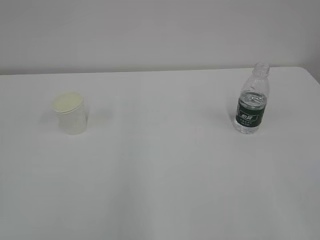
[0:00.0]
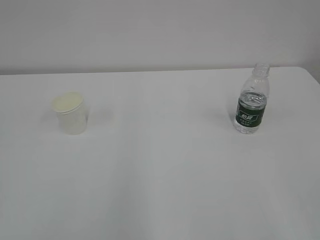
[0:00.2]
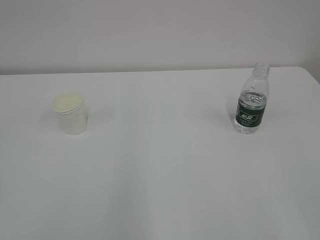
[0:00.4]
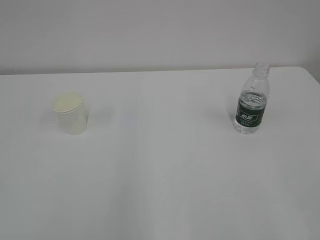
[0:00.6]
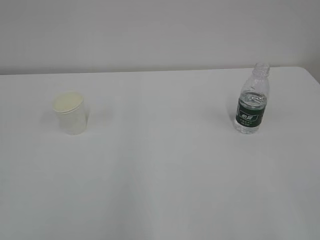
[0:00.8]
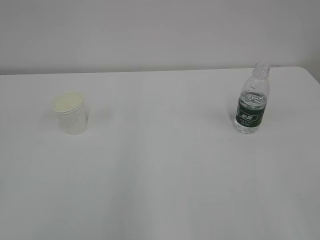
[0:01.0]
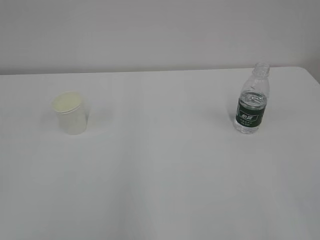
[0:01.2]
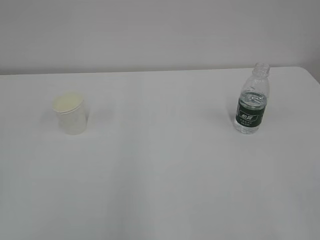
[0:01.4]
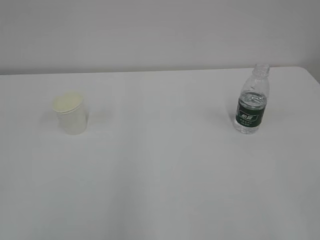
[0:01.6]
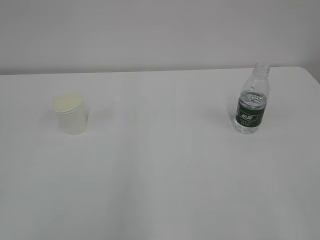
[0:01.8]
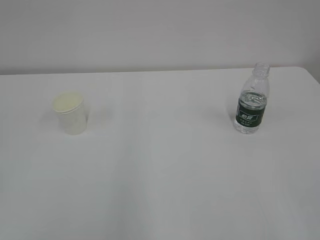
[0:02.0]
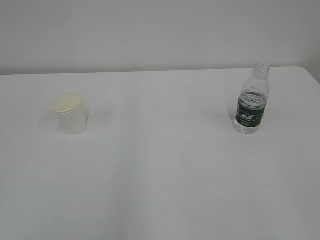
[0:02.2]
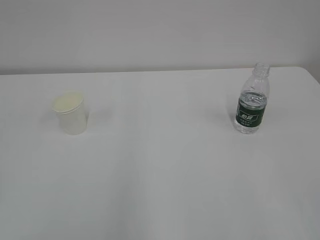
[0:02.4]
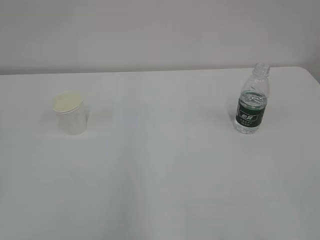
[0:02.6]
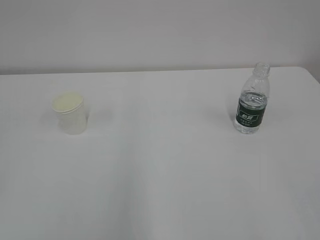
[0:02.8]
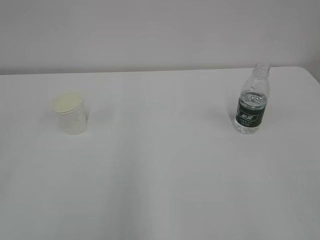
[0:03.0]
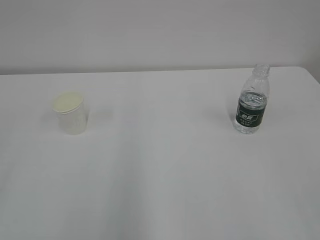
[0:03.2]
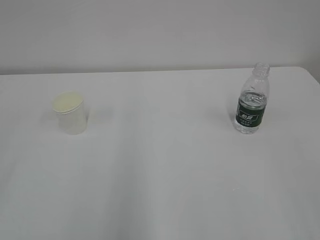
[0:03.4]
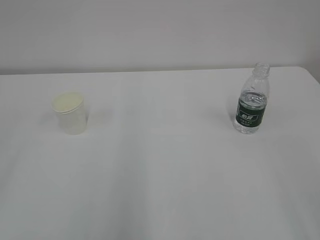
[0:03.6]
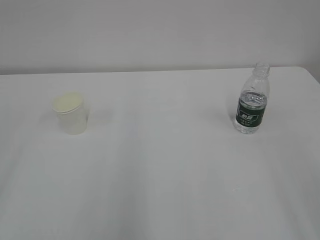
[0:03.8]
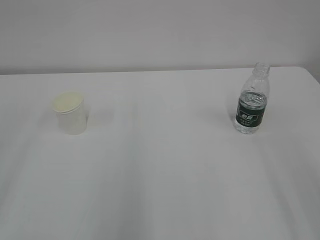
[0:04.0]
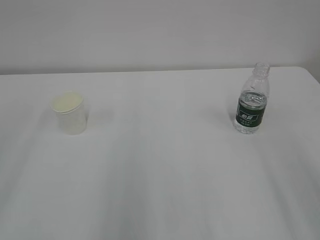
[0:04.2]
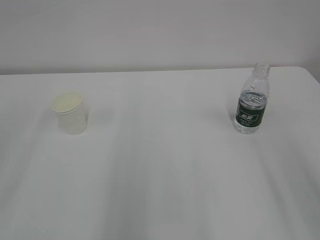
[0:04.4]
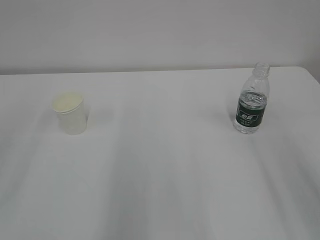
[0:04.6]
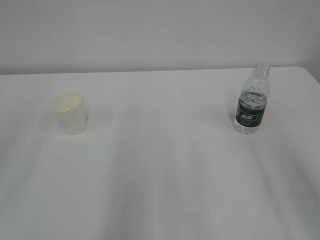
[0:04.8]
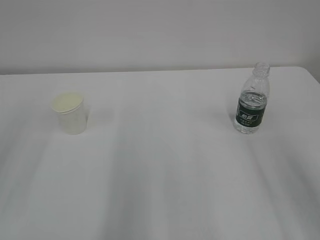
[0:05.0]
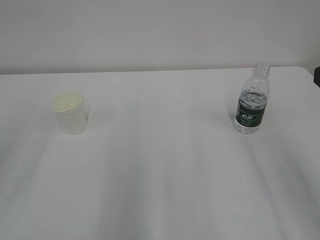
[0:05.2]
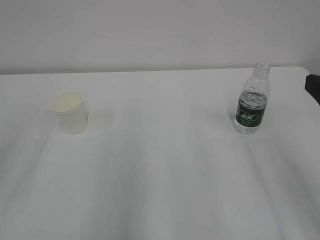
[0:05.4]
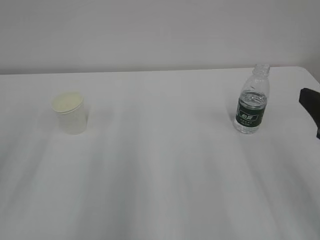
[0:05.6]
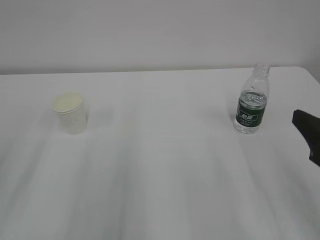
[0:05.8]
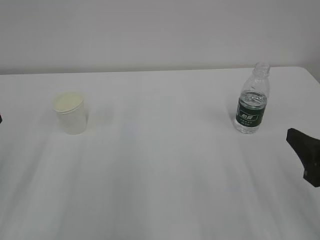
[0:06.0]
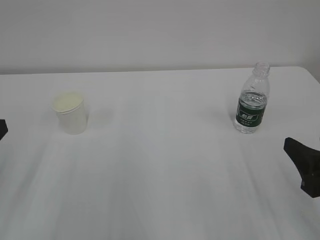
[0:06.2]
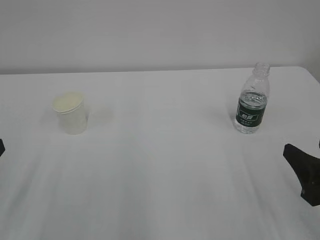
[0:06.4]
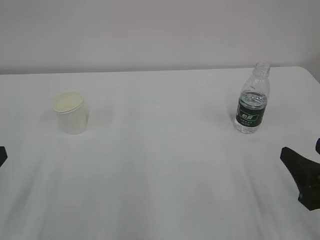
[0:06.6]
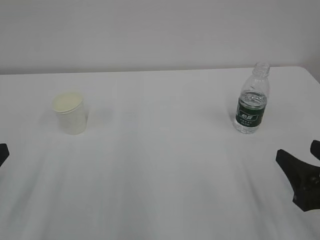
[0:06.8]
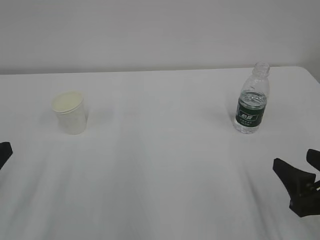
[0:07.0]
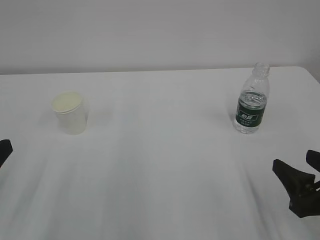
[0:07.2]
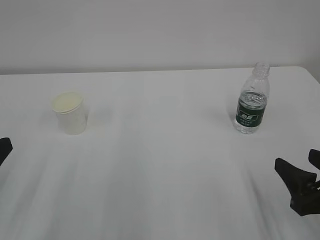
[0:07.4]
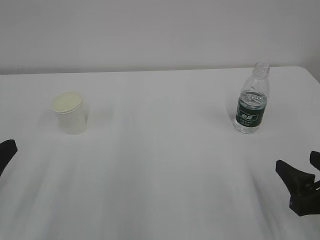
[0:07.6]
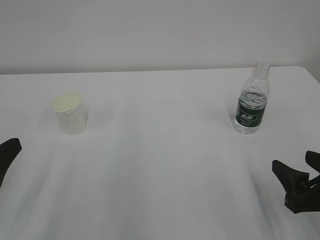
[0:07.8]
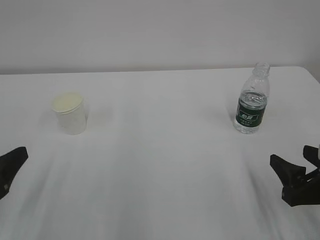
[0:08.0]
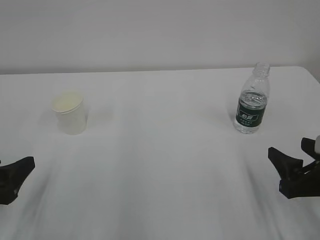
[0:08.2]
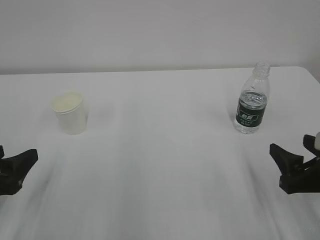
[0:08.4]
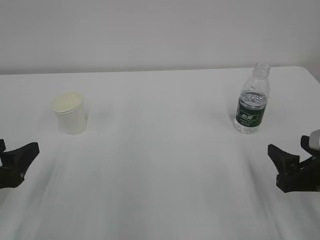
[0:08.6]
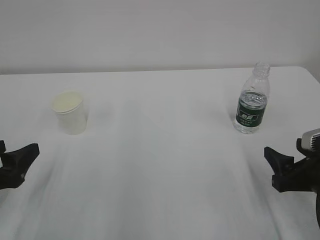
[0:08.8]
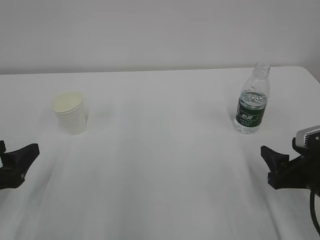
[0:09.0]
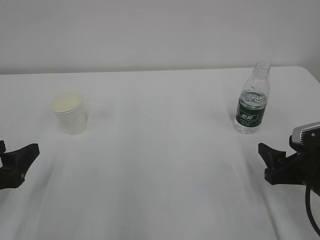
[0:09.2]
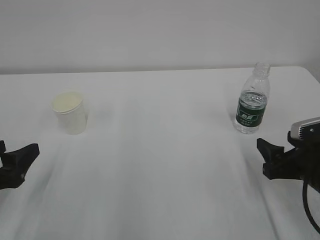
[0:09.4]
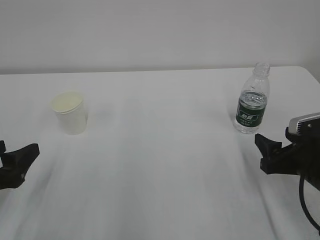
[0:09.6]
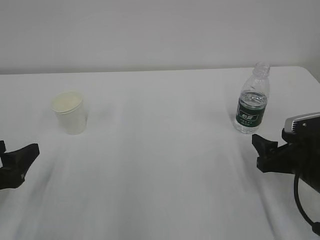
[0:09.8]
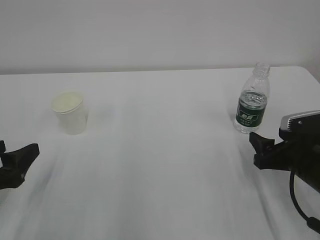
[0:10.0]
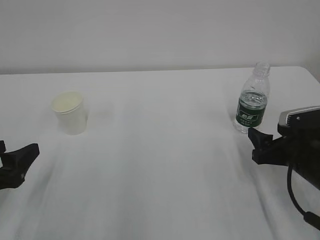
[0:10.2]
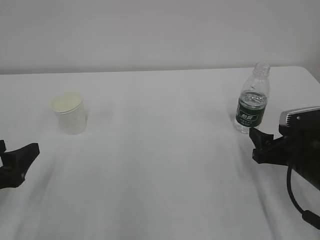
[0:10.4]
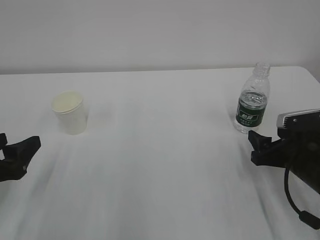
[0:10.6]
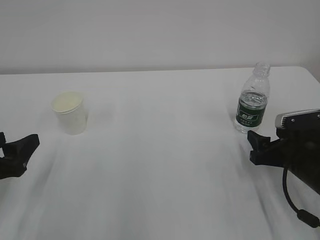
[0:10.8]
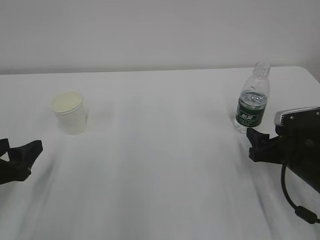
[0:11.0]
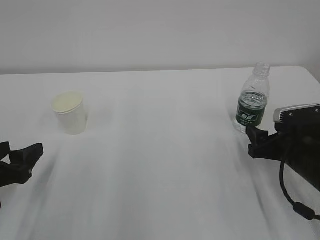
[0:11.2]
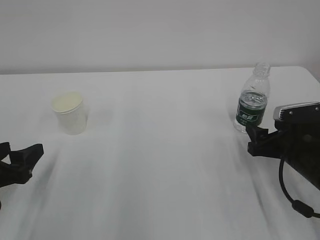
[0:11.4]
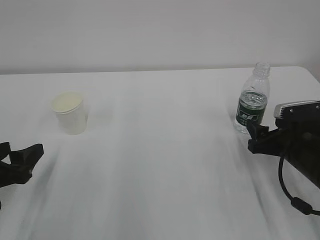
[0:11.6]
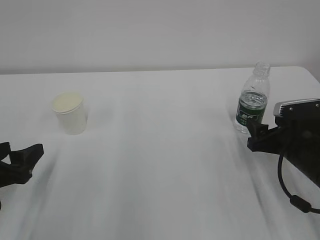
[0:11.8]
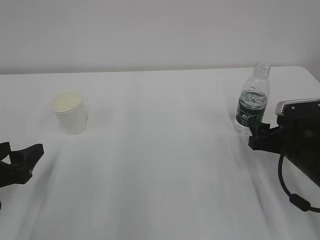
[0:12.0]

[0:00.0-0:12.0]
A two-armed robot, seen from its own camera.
0:04.4 to 0:06.0: The right gripper shifts some 15 cm downward and forward.
0:06.0 to 0:07.6: The right gripper heads downward, covering about 5 cm.
0:07.6 to 0:09.0: The right gripper shifts roughly 5 cm forward, while the left gripper ends up about 5 cm from where it was.
0:09.0 to 0:10.4: The right gripper shifts by roughly 5 cm.
0:10.4 to 0:12.0: The grippers stay close to where they were, moving slightly.

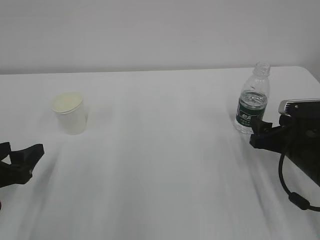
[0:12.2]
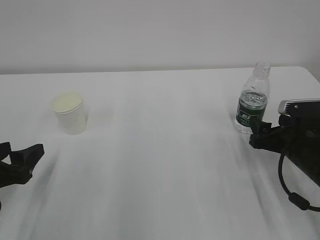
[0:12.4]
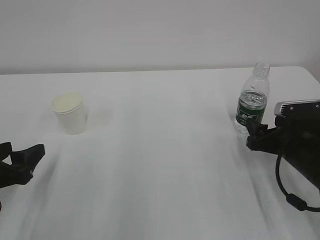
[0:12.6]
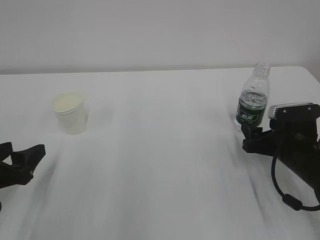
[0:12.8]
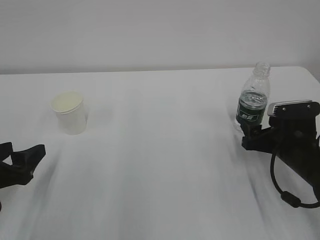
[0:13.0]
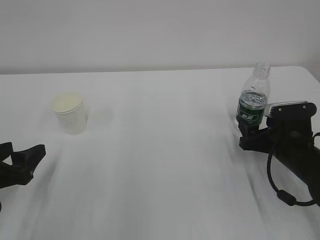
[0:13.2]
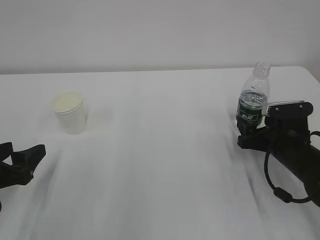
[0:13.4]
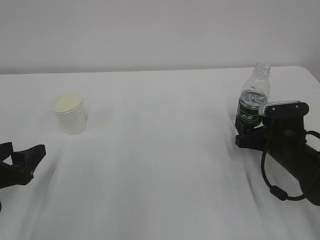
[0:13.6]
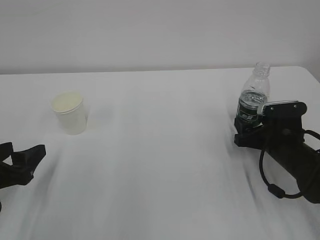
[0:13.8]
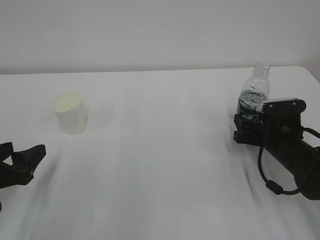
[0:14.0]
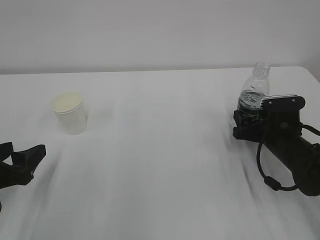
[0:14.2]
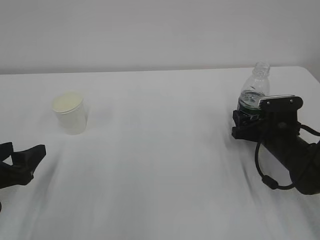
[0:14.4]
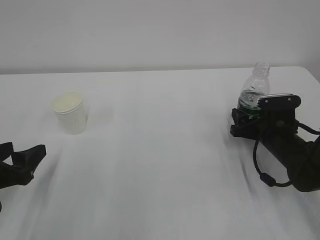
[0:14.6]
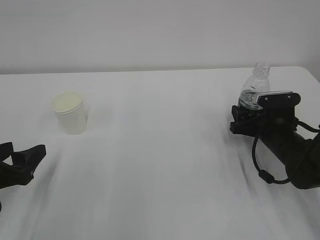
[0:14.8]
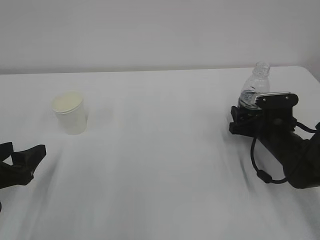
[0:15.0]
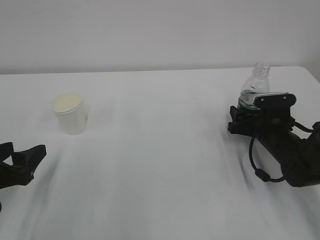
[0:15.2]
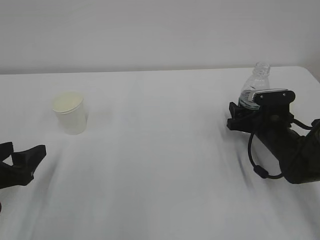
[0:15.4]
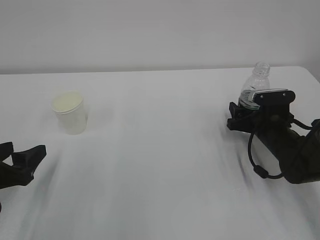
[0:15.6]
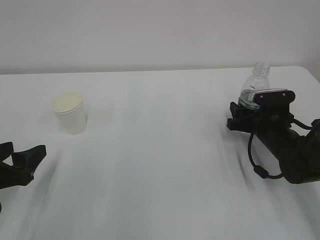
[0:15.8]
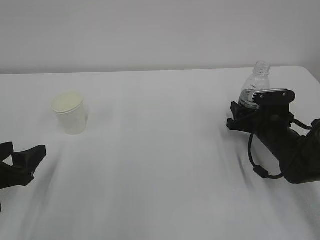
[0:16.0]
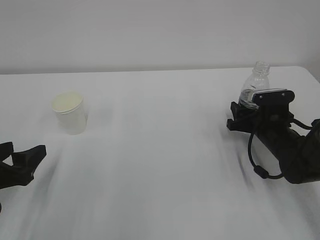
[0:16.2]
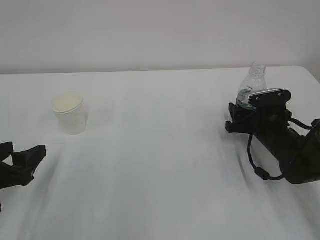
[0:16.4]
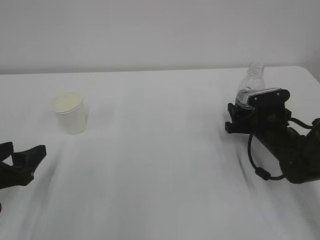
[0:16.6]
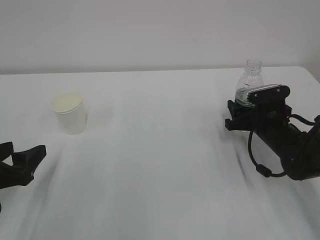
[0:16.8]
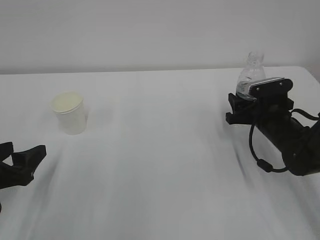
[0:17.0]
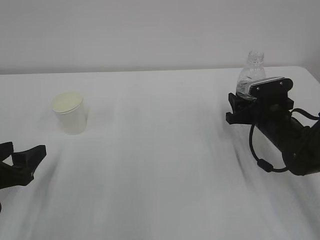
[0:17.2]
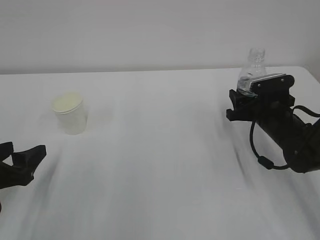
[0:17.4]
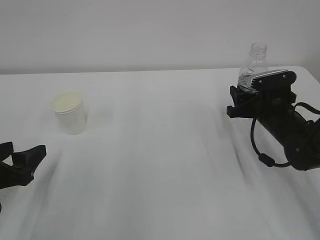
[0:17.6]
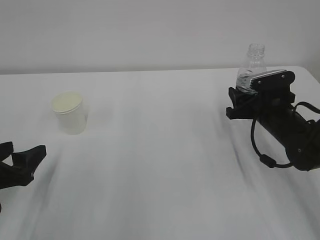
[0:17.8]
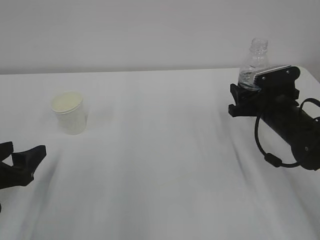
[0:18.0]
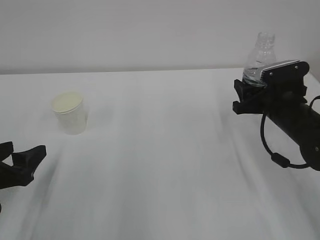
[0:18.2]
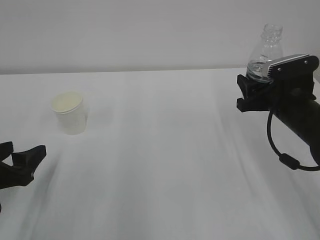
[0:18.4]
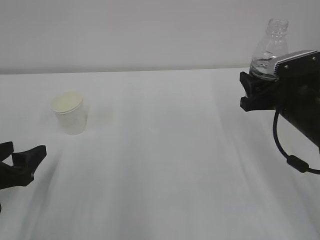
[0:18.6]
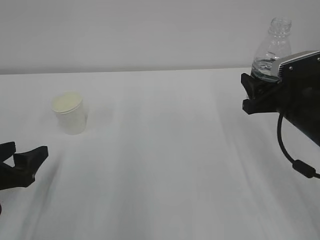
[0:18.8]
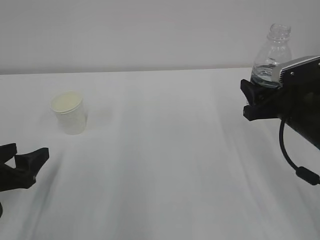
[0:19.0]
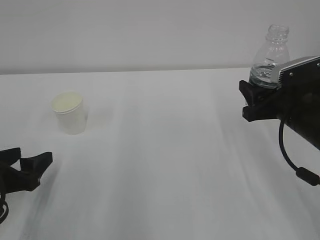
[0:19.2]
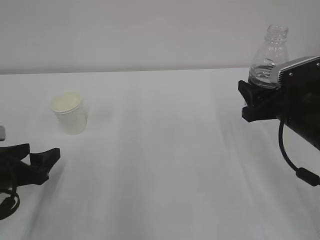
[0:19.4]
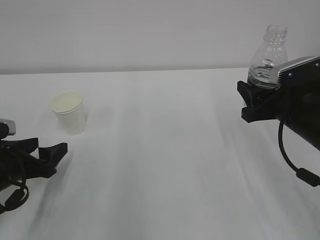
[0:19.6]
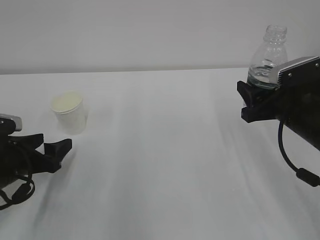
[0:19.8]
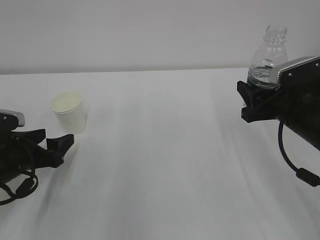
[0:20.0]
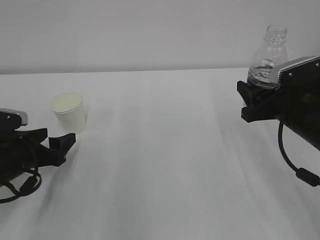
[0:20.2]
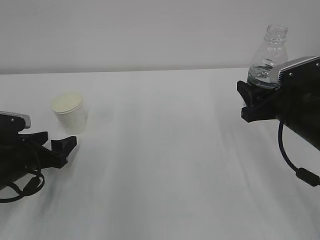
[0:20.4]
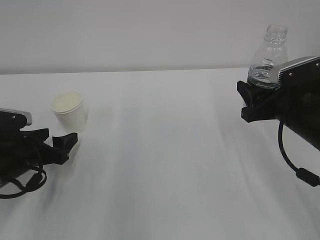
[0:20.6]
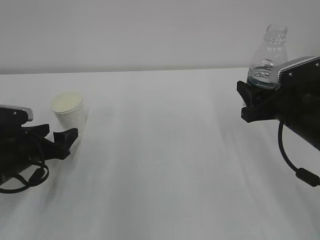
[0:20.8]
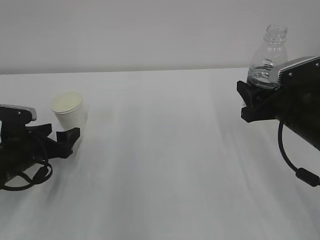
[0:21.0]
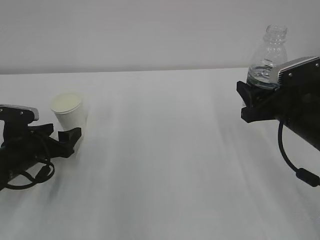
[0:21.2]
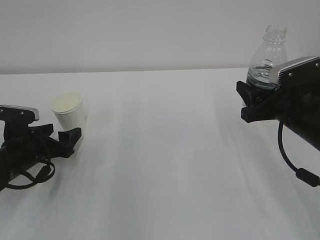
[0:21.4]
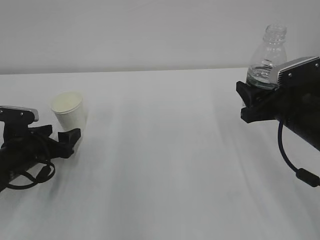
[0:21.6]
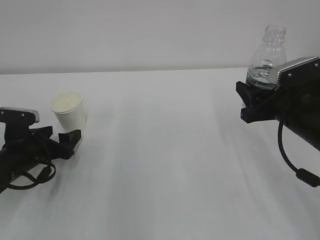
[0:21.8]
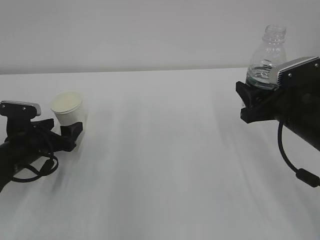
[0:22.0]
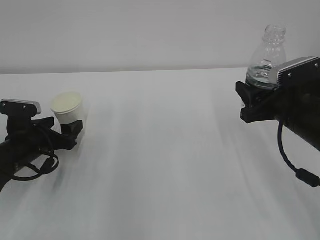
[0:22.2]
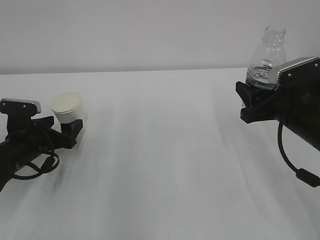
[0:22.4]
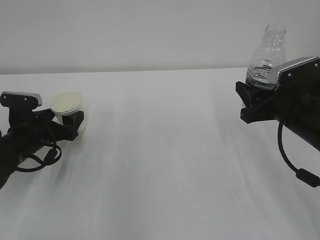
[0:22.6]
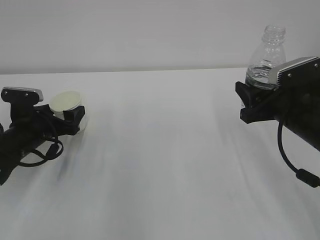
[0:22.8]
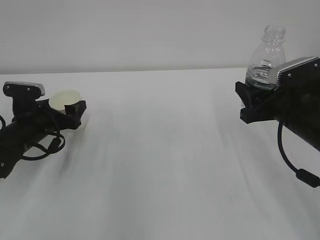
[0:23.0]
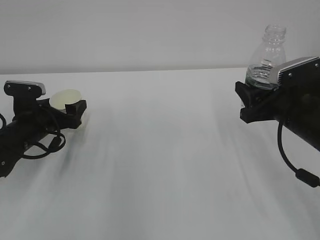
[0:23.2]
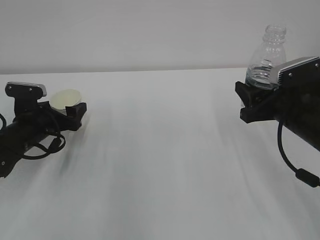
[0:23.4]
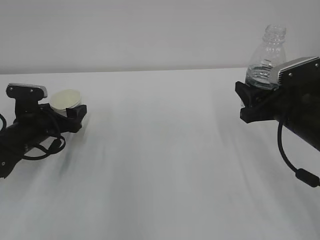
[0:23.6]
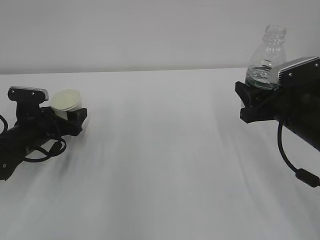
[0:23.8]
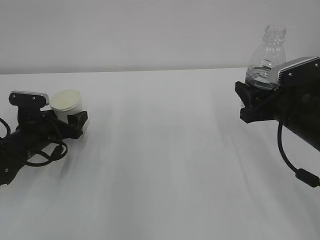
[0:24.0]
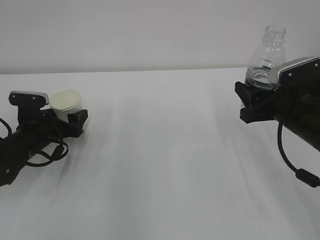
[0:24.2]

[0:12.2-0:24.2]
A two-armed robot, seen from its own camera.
0:12.2 to 0:13.8: The right gripper moves some 5 cm.
0:13.8 to 0:15.2: There are only small adjustments of the grippers.
0:15.2 to 0:16.6: The right gripper closes its fingers.
0:16.6 to 0:18.2: The right gripper goes approximately 5 cm upward.
0:18.2 to 0:19.8: The left gripper is displaced forward by roughly 5 cm, while the right gripper travels backward by approximately 5 cm.
0:19.8 to 0:21.2: The left gripper changes place by approximately 5 cm.
0:21.2 to 0:24.2: The grippers make only small movements.
